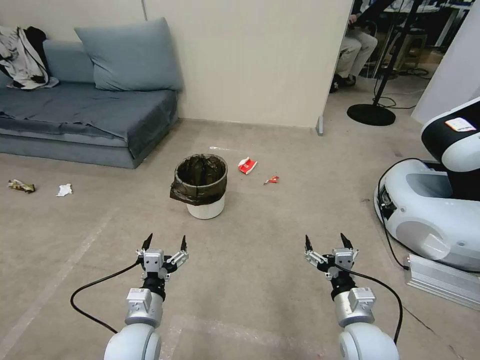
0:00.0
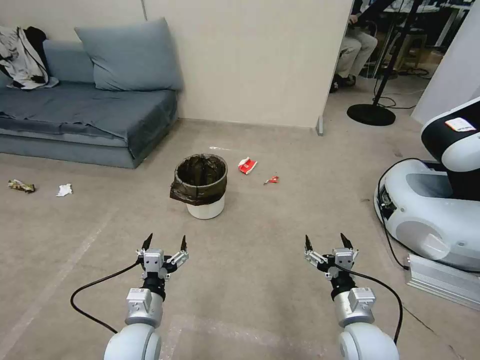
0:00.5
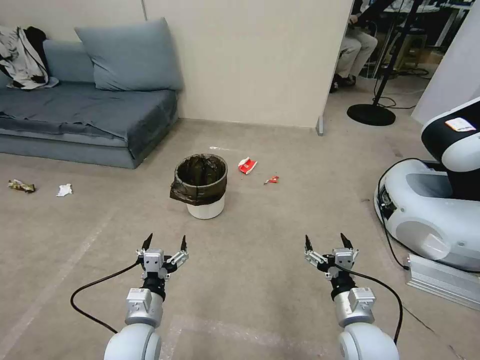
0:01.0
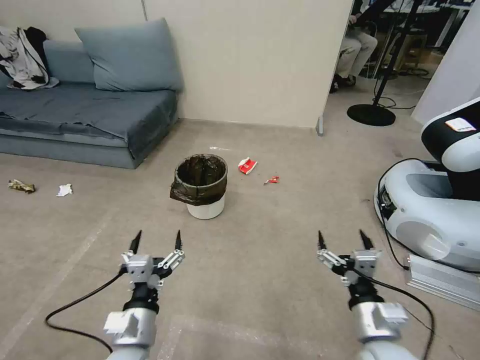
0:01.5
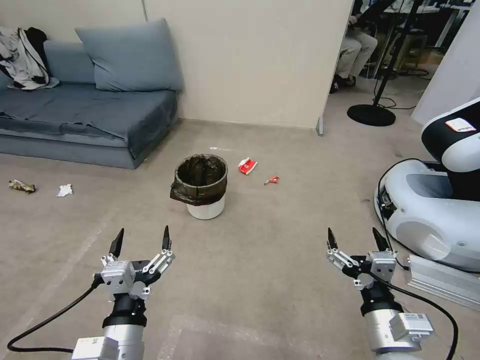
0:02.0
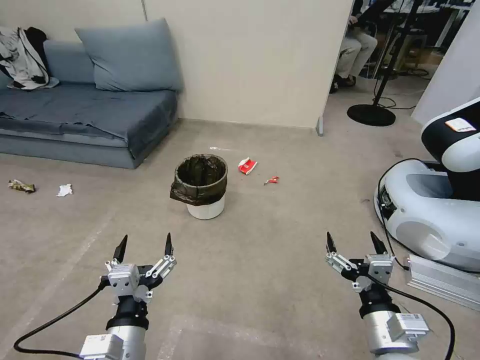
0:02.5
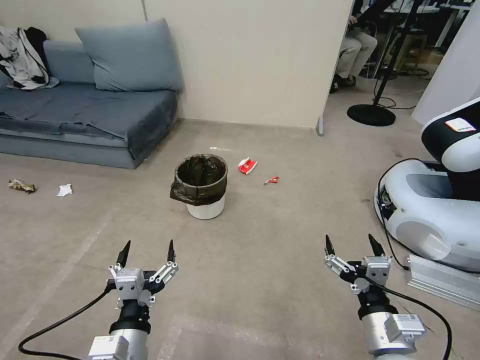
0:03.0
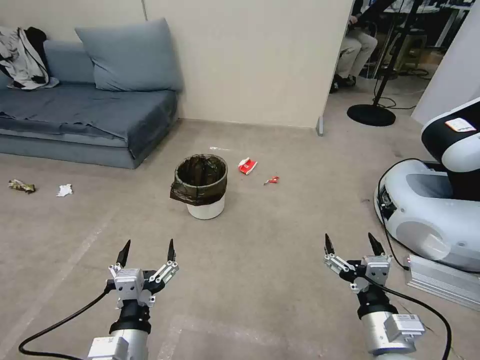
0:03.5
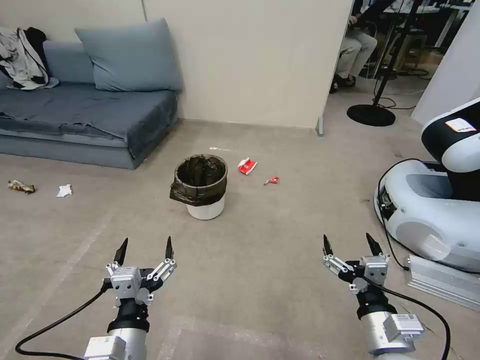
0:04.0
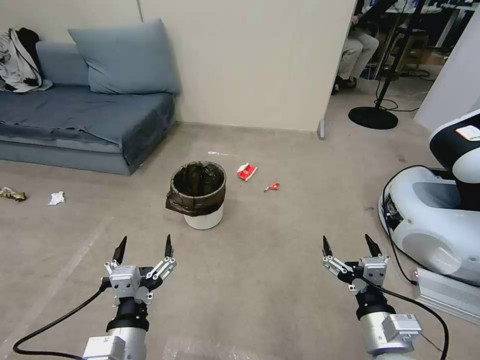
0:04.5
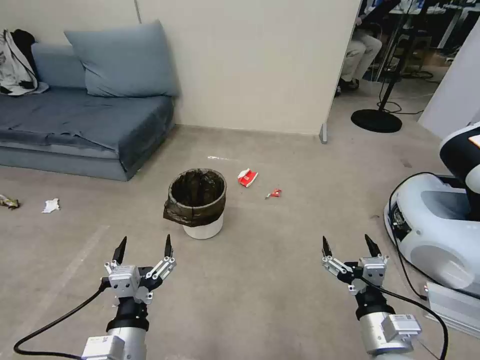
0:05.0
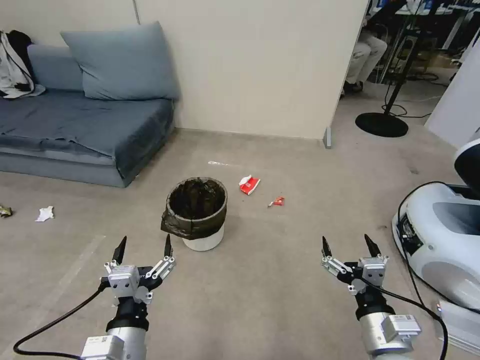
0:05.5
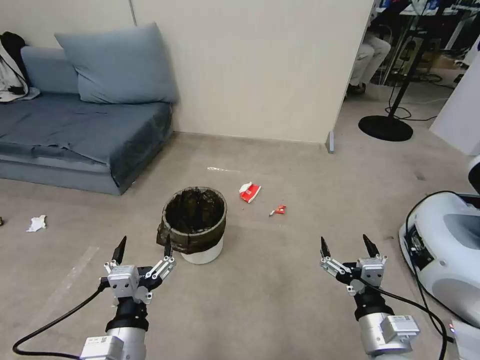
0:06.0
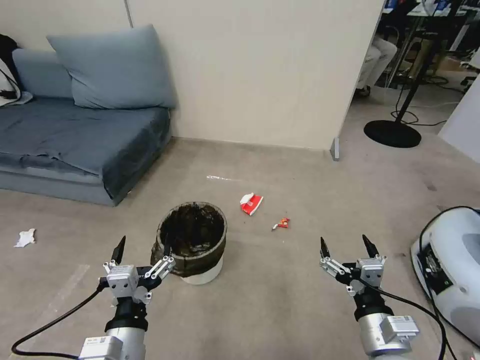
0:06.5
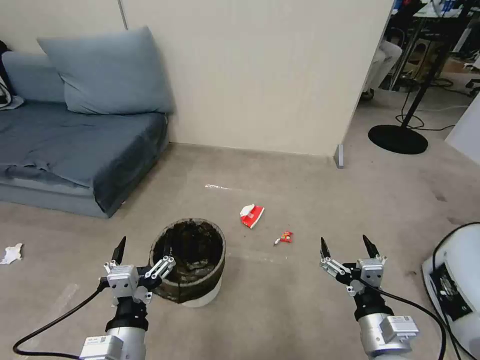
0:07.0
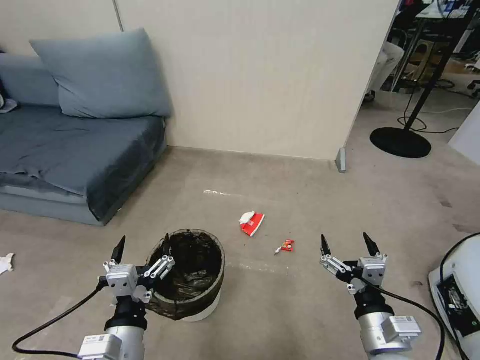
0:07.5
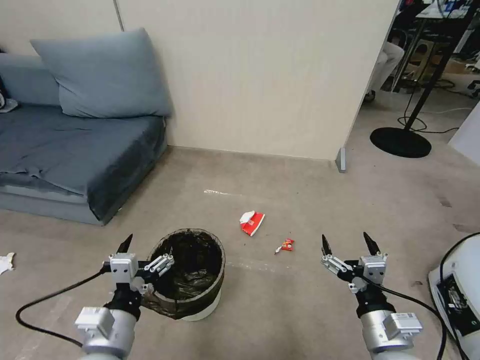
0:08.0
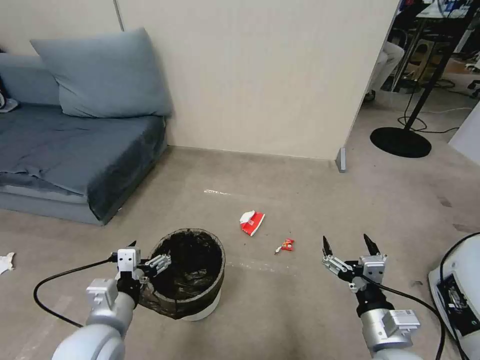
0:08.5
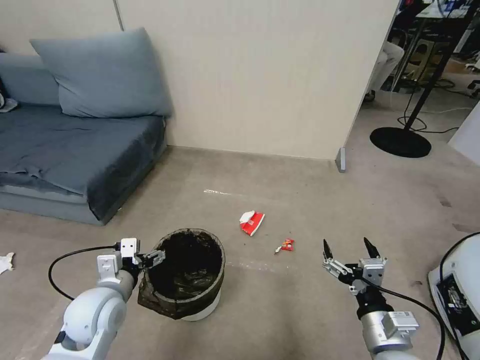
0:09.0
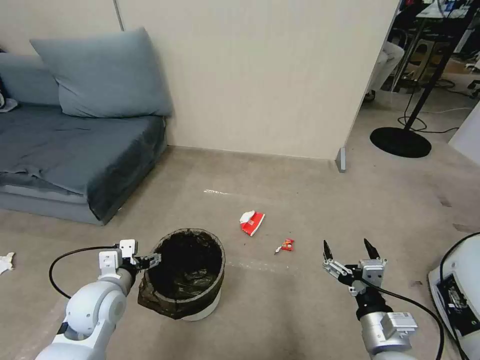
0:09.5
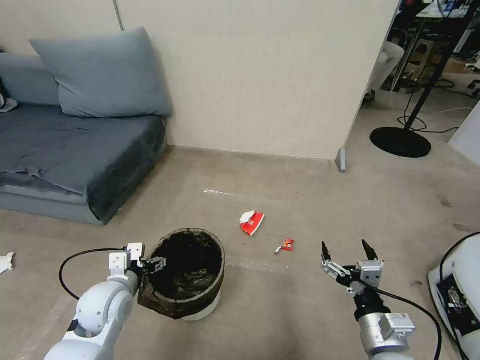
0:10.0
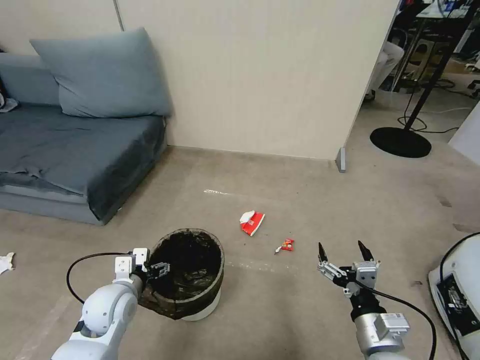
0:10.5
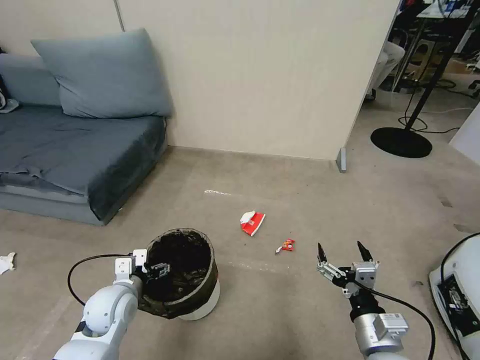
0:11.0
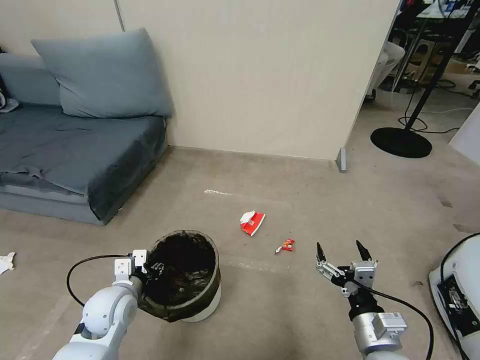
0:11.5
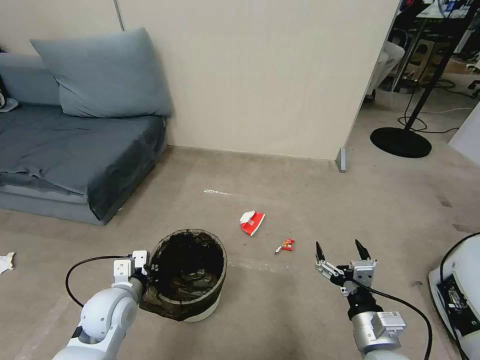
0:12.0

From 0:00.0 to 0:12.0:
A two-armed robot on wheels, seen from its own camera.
Task of the whole recording: Pick up the trash bin, then pick up the garbage from the floor and place it into the trash bin.
From 0:02.0 to 0:04.0: The grippers stay close to where they were, moving slightly.
From 0:08.0 to 0:10.0: The left gripper shifts some 15 cm forward and to the left.
From 0:10.0 to 0:12.0: The left gripper closes its fingers.

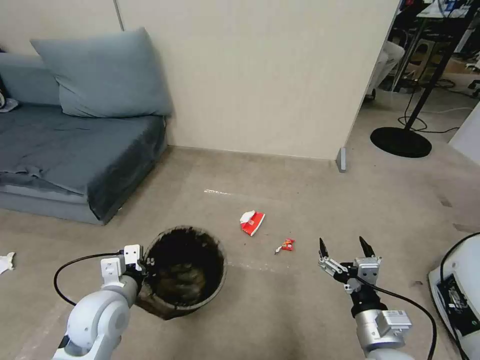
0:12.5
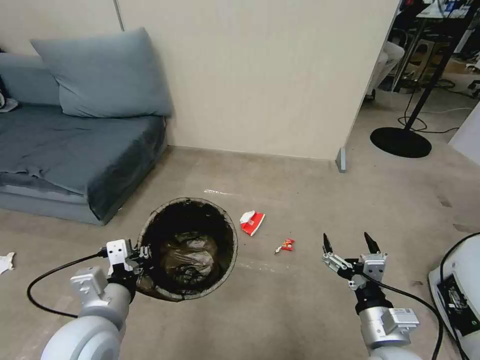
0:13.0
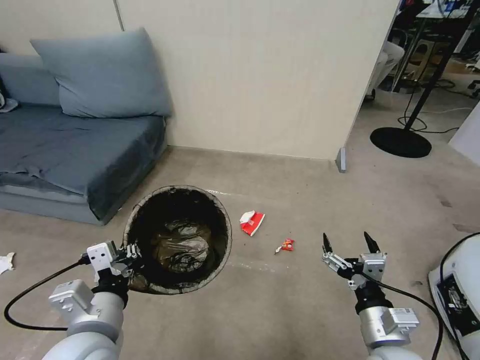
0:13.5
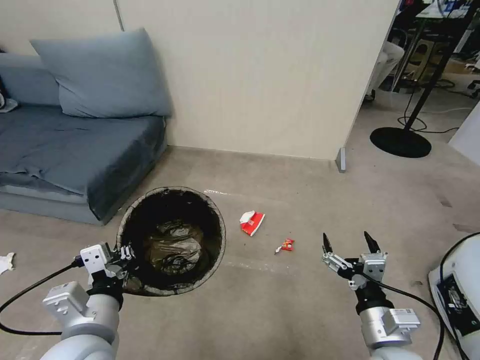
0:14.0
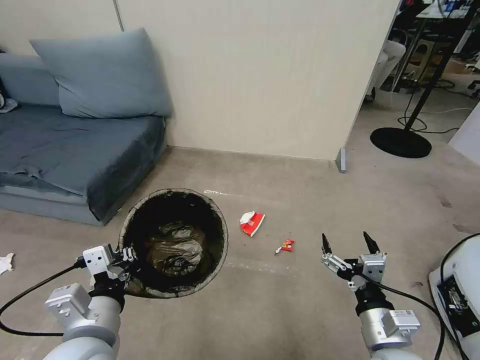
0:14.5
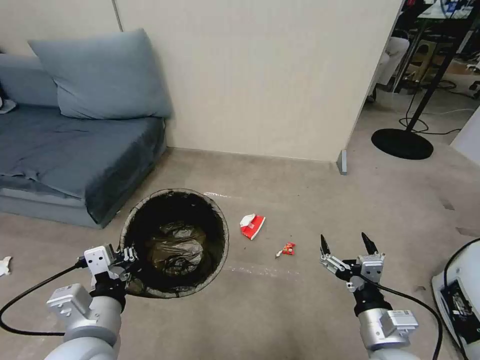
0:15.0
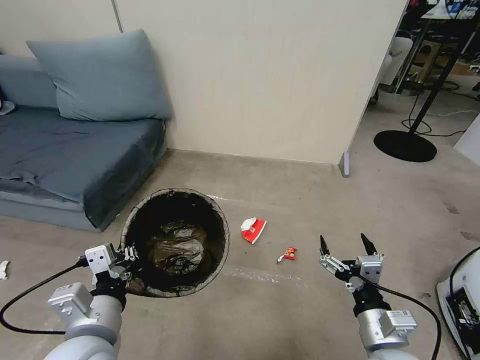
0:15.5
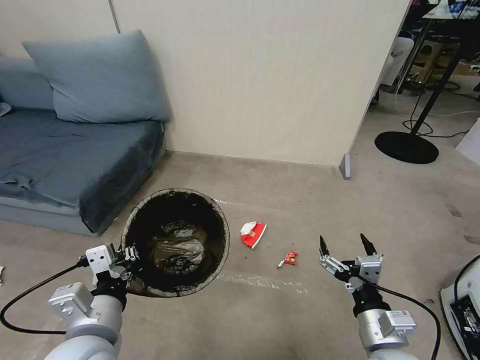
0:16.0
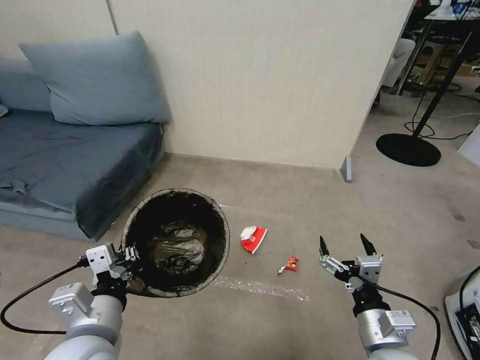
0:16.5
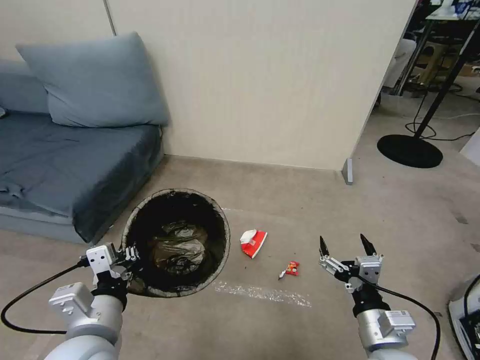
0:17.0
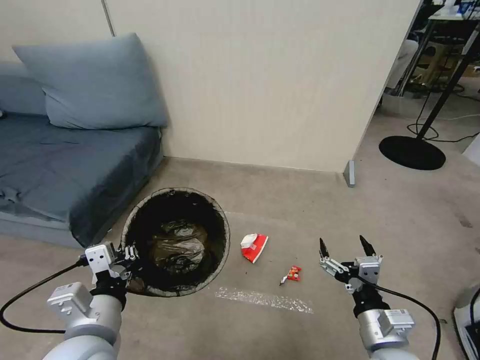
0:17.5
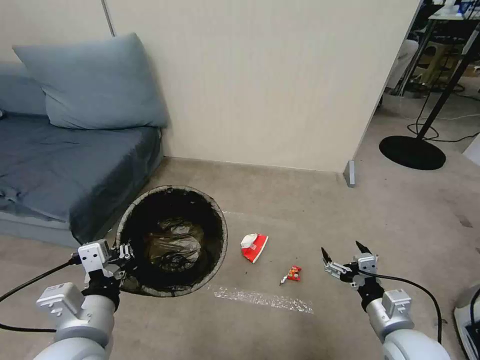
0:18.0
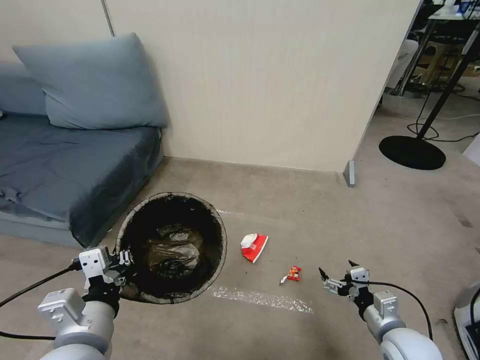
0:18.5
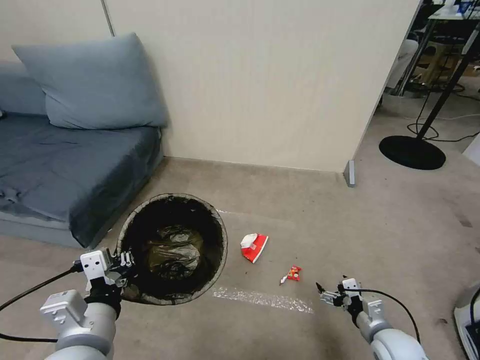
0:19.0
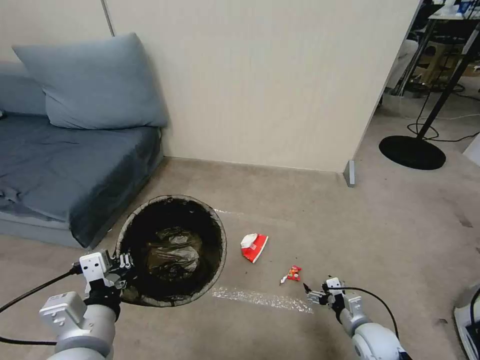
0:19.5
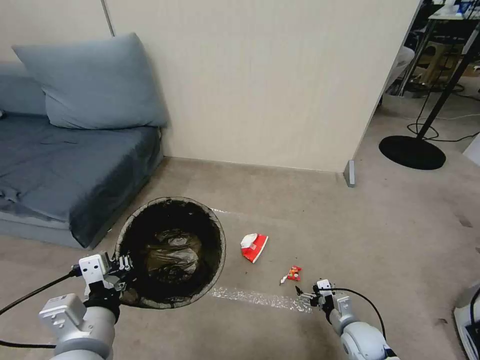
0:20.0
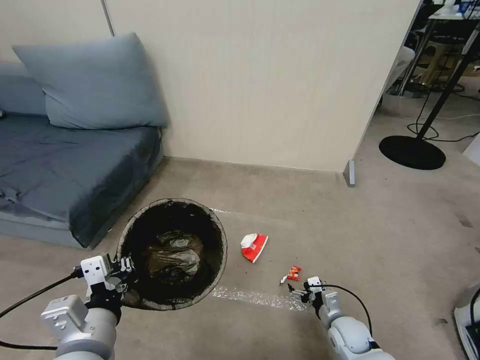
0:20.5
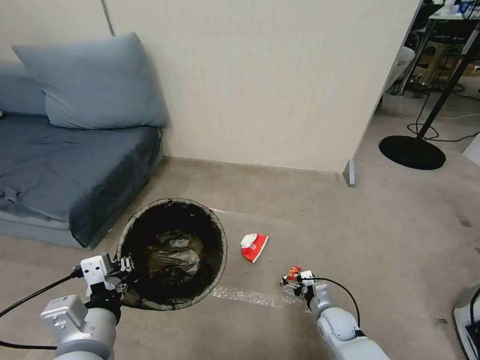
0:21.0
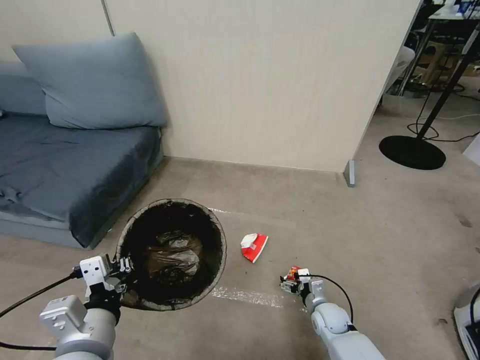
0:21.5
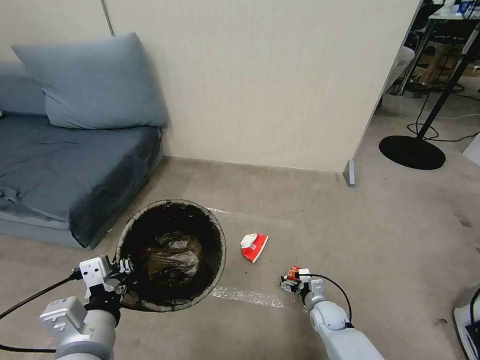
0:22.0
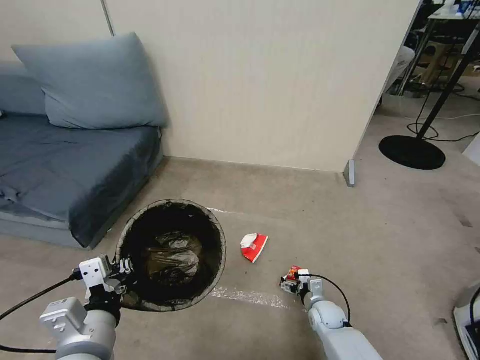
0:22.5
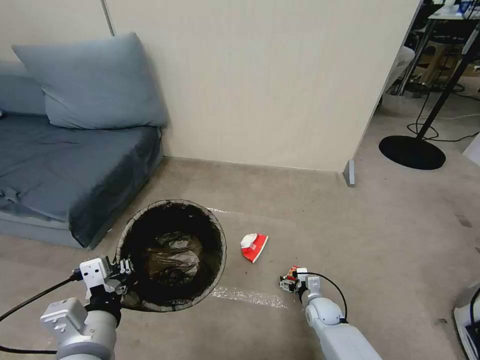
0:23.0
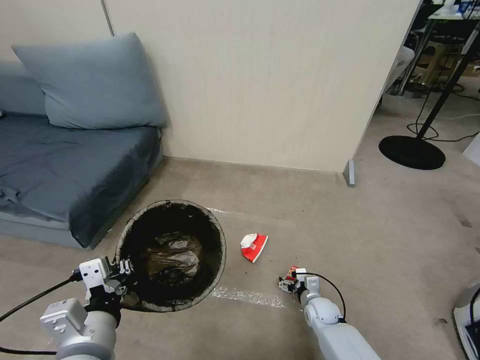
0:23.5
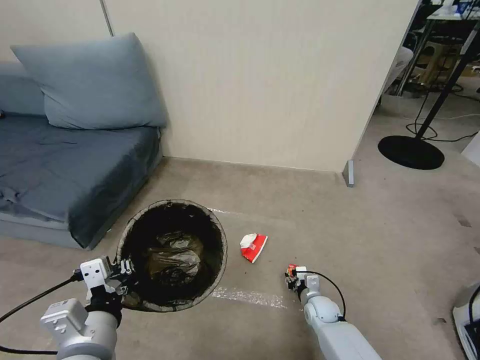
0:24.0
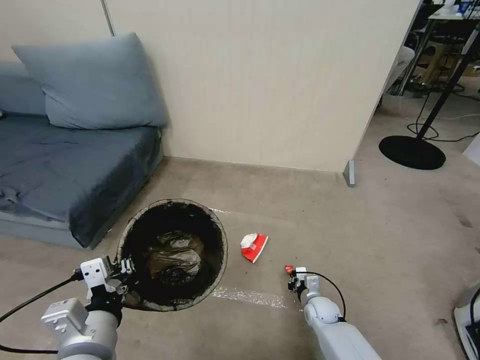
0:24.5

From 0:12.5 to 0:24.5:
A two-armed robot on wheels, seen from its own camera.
Task of the whole recording: Pick up the trash bin, then pick up the garbage from the floor and place it into the trash bin.
From 0:12.5 to 0:14.5: The left gripper goes some 10 cm backward and upward.
From 0:14.5 to 0:16.5: Both grippers stay about where they are.
From 0:16.5 to 0:18.5: The right gripper heads to the right and downward, covering some 10 cm.
From 0:18.5 to 0:20.5: The right gripper goes some 15 cm downward and forward.
From 0:20.5 to 0:22.5: The right gripper goes approximately 5 cm forward.
From 0:22.5 to 0:24.5: The right gripper closes.

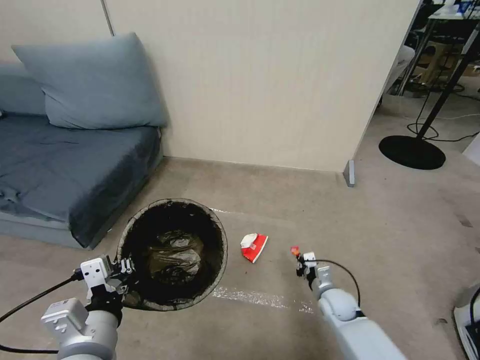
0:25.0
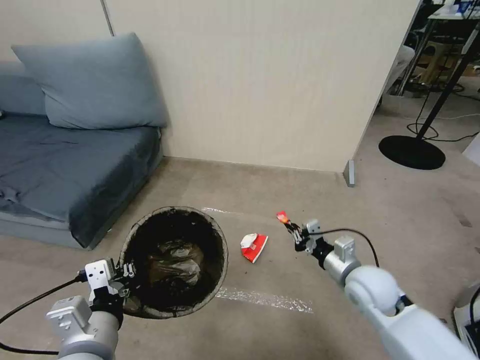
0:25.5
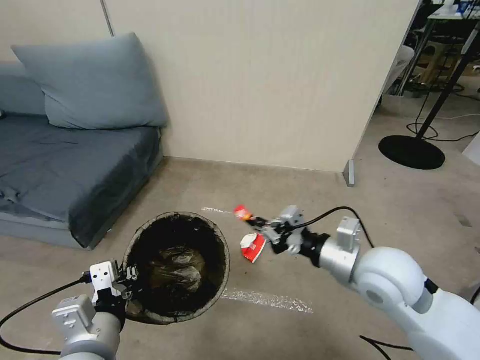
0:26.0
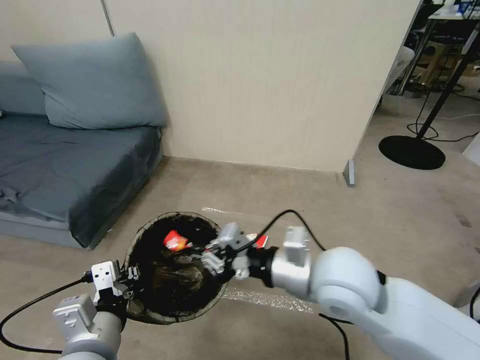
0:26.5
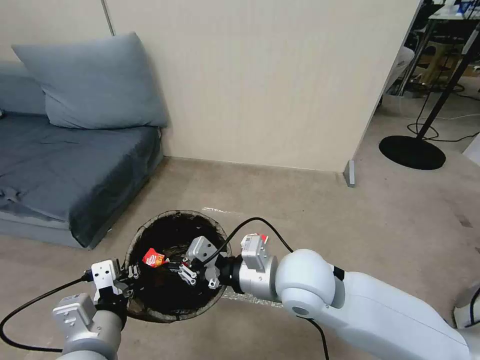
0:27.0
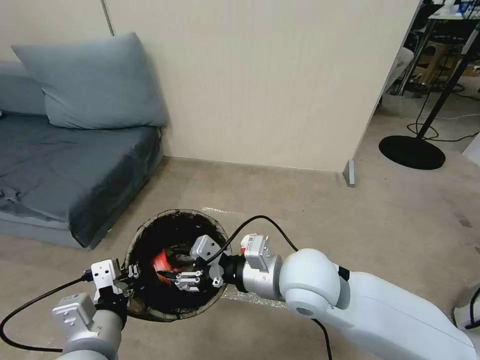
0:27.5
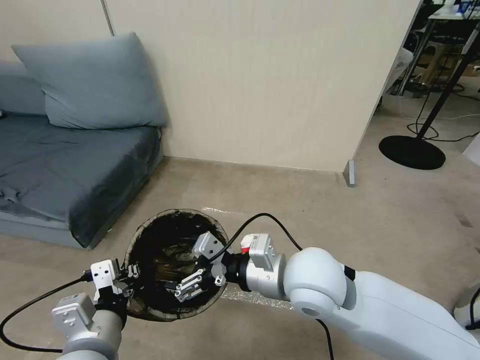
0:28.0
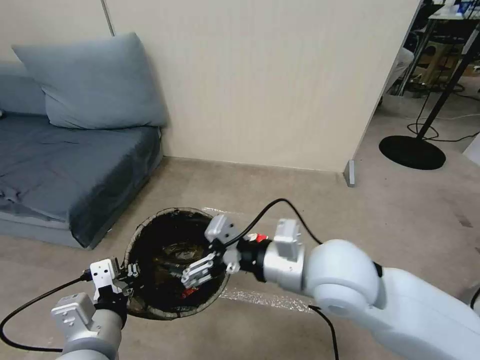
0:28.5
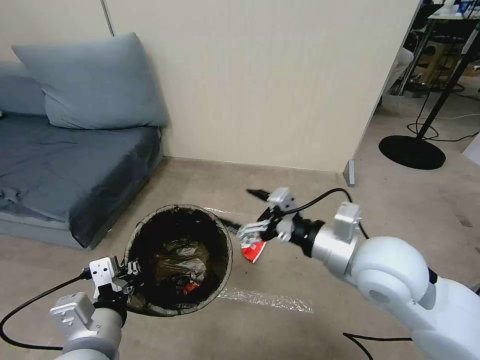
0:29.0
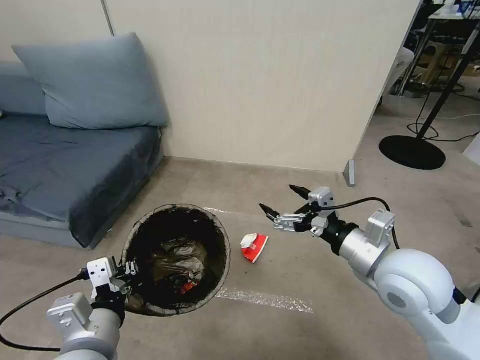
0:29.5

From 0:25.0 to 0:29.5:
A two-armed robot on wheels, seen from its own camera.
Task of the whole recording: Pick up the trash bin, then pick up the garbage from the floor and place it into the trash bin.
From 0:25.0 to 0:27.0: The right gripper is displaced upward and to the left by about 35 cm.
From 0:27.0 to 0:29.5: The right gripper travels to the right by about 15 cm, and opens its fingers.
